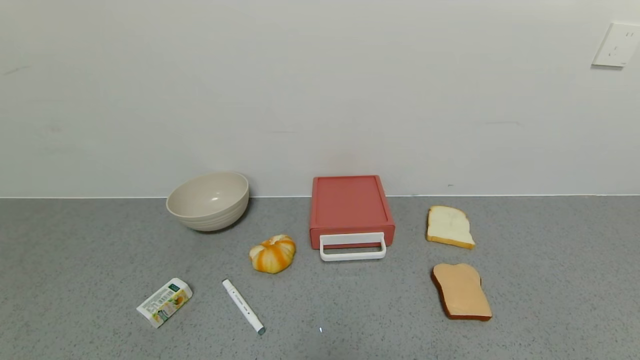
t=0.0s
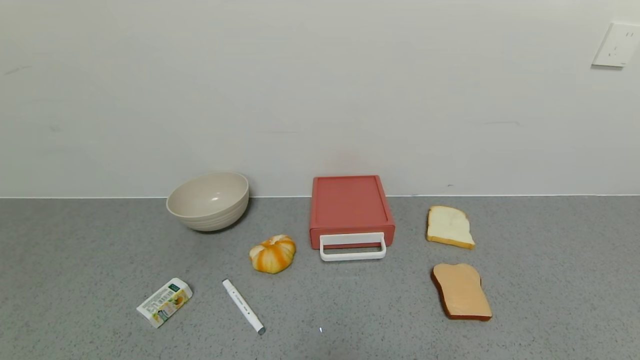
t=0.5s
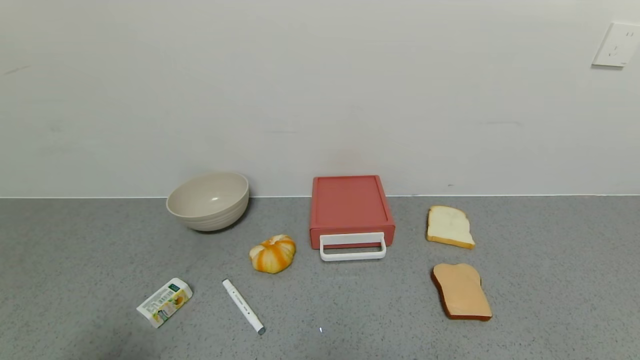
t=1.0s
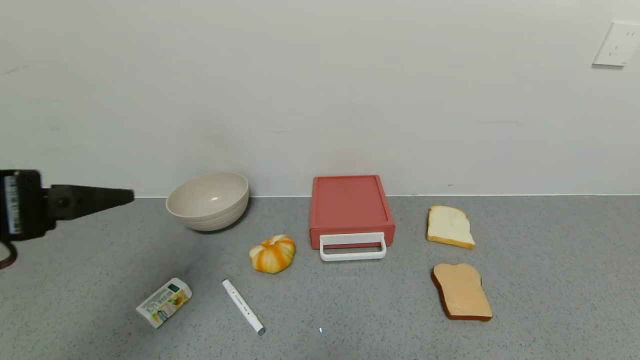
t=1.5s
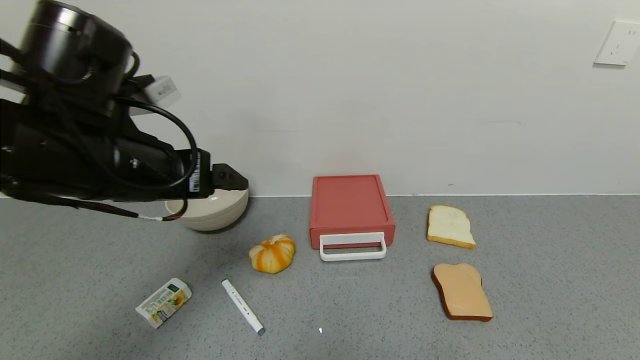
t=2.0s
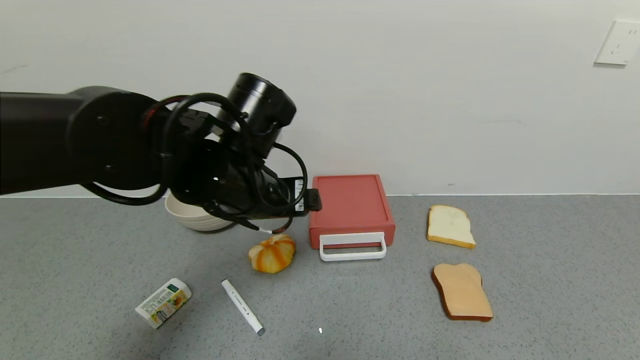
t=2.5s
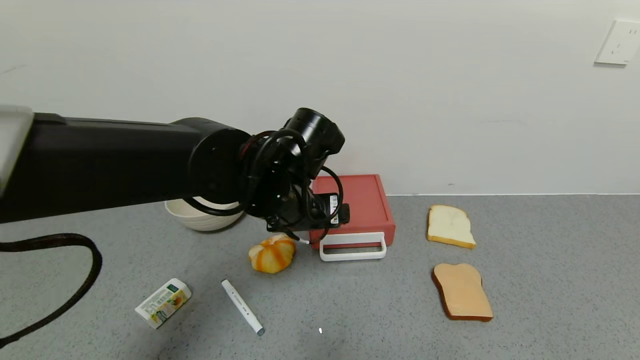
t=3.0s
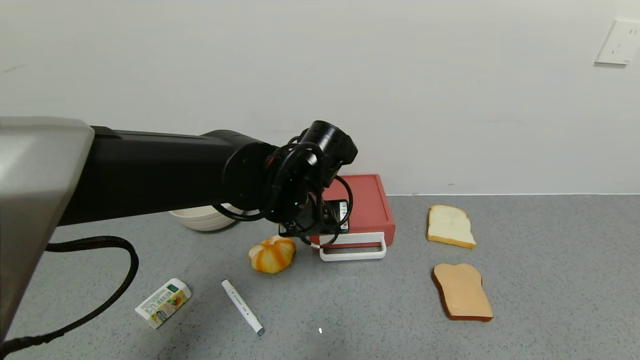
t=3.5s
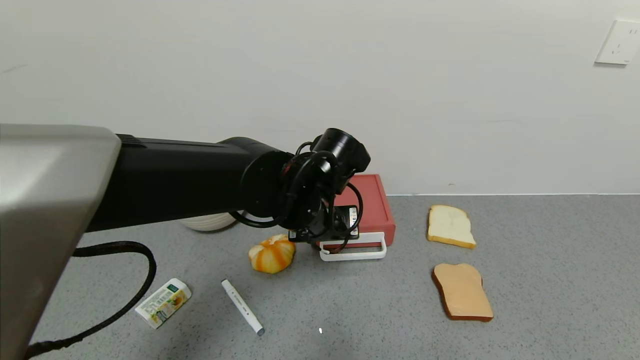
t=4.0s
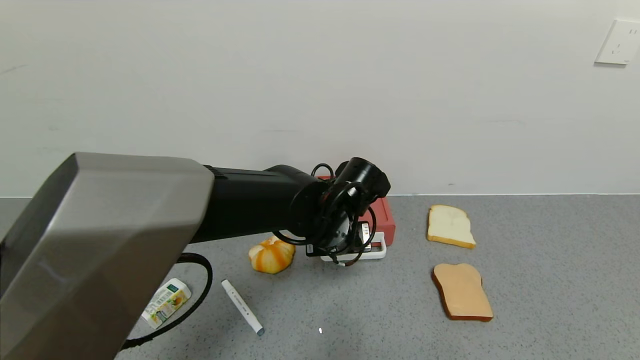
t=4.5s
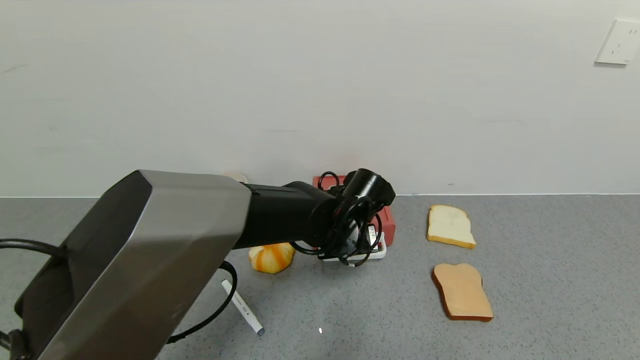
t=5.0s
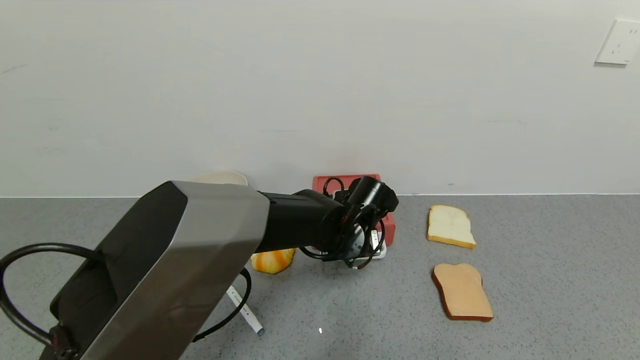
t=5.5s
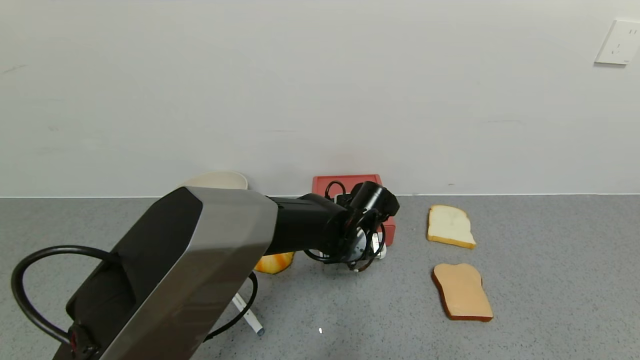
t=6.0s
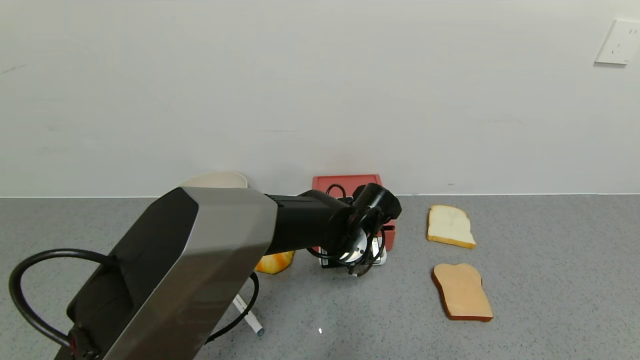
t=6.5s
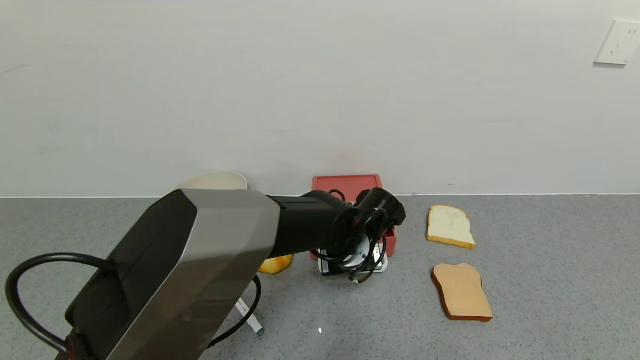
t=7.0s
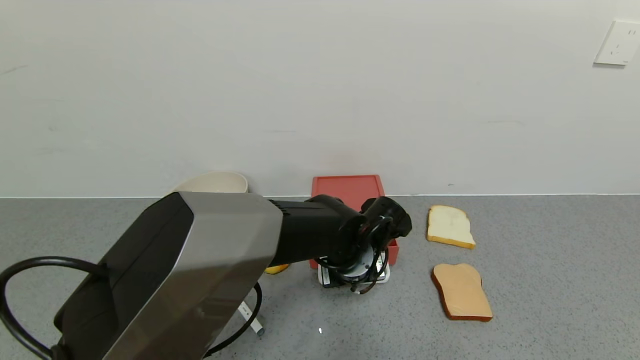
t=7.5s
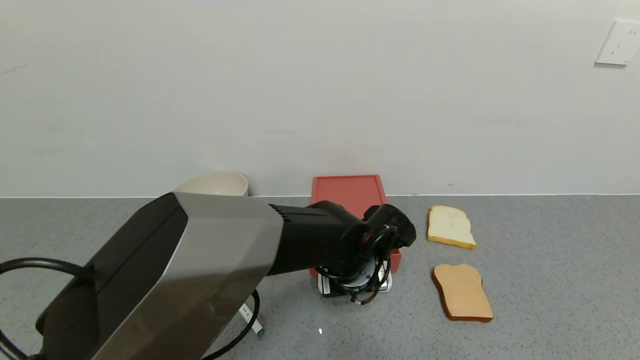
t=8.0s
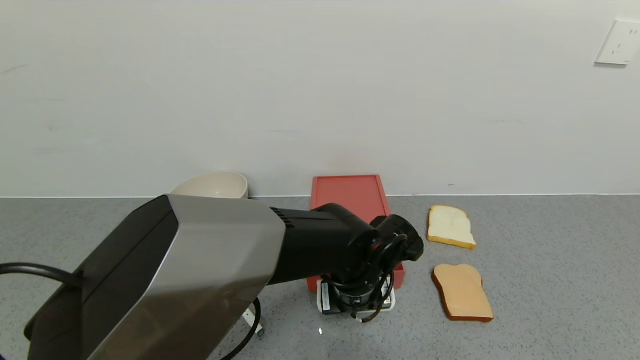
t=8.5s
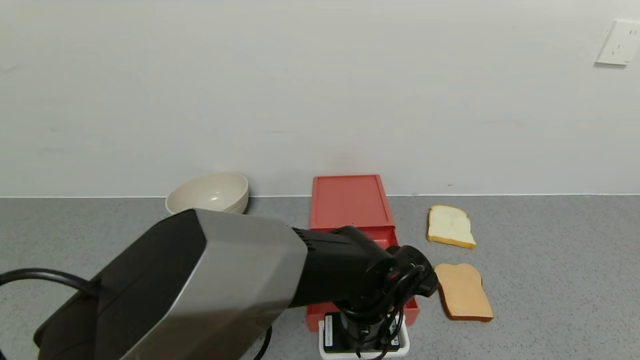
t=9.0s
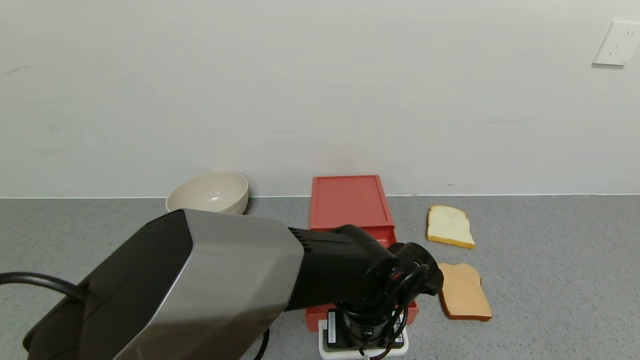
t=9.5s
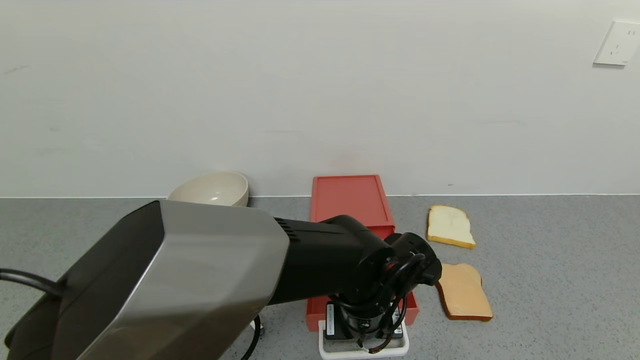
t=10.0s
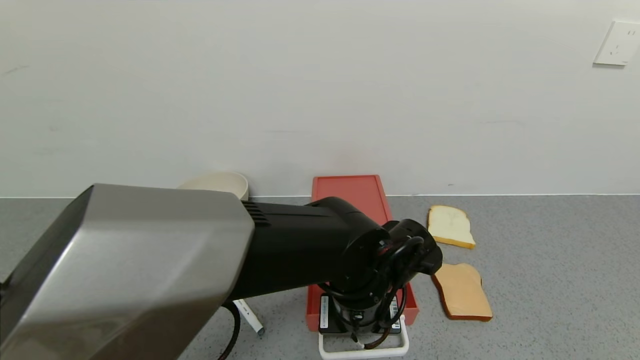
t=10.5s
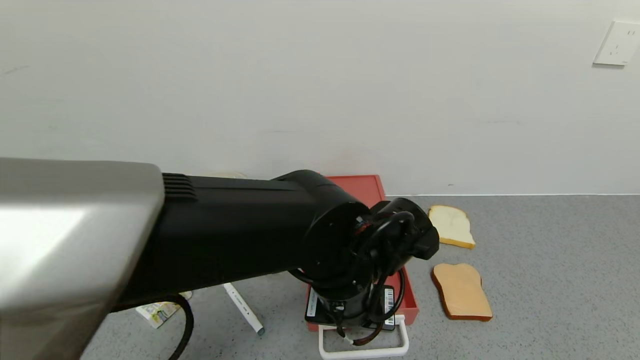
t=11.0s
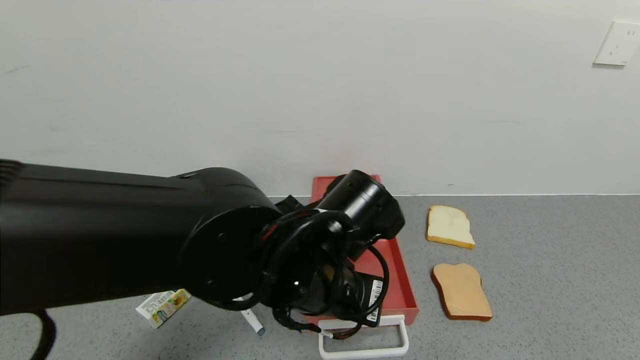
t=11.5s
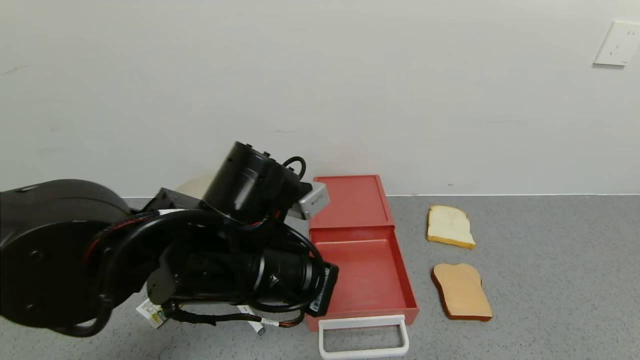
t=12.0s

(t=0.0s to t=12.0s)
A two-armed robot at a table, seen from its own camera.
Task of the whole recording: use the gripper to open the drawer and close the red drawer.
Step, t=0.0s - t=11.0s: Open the red drawer with left gripper.
t=0.0s - t=2.0s: The left gripper travels forward and upward by roughly 35 cm.
t=2.0s - t=4.0s: The left gripper goes some 20 cm to the right, downward and forward, and closes its fingers.
t=4.0s - t=6.0s: The left gripper heads downward and to the right, covering some 10 cm.
t=6.0s - t=8.0s: The left gripper heads backward, covering about 5 cm.
t=8.0s - t=10.0s: There are only small adjustments of the grippers.
t=10.0s - t=12.0s: The left gripper goes roughly 15 cm to the left and upward.

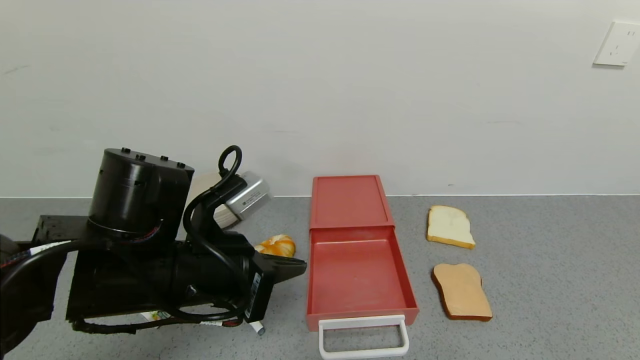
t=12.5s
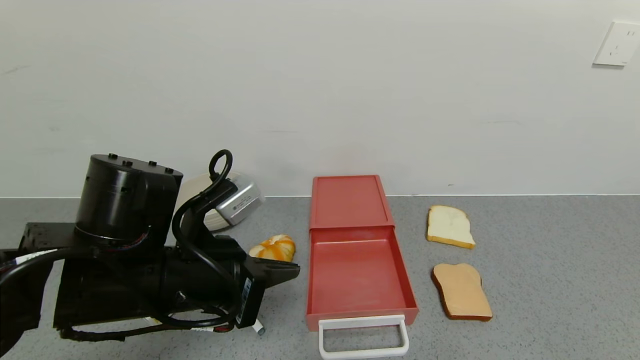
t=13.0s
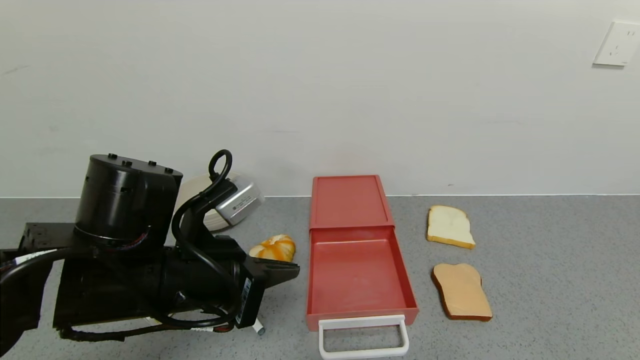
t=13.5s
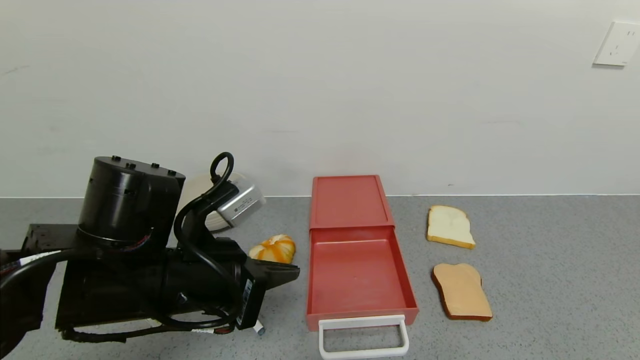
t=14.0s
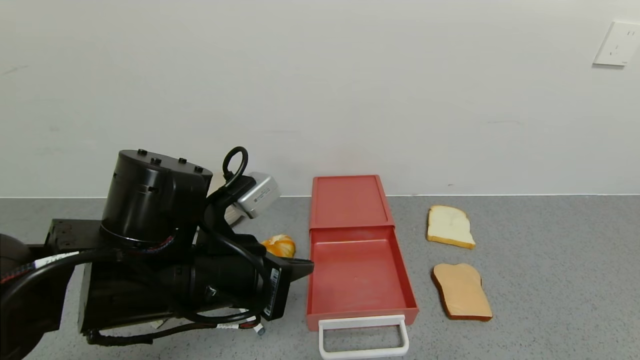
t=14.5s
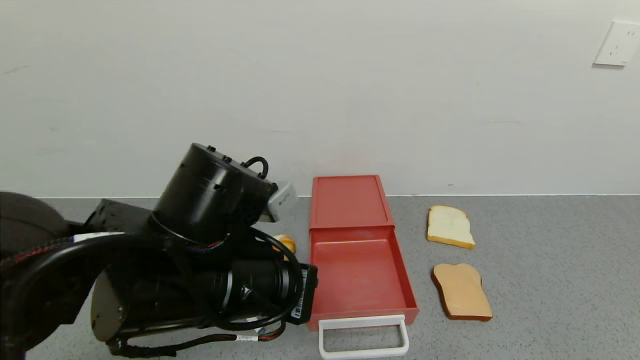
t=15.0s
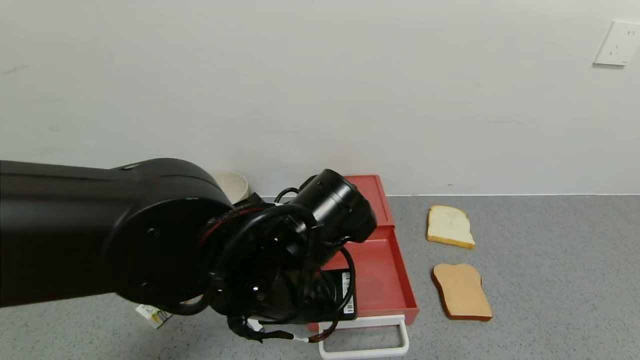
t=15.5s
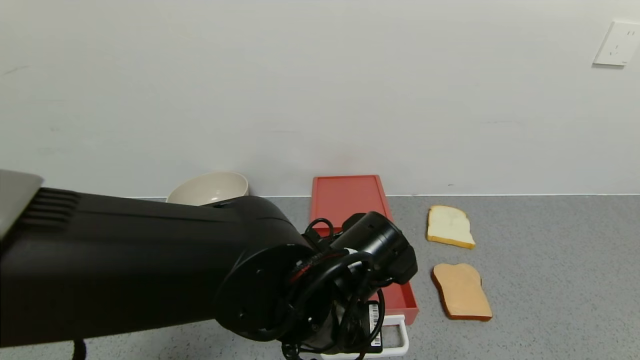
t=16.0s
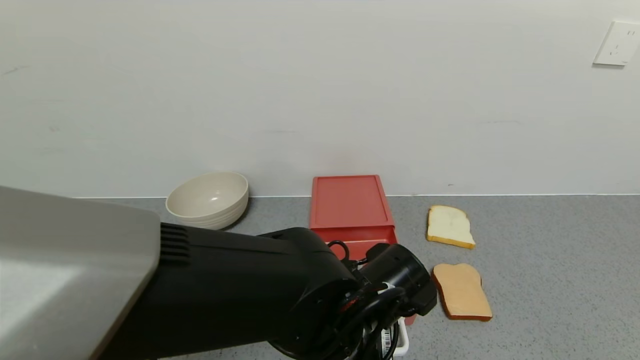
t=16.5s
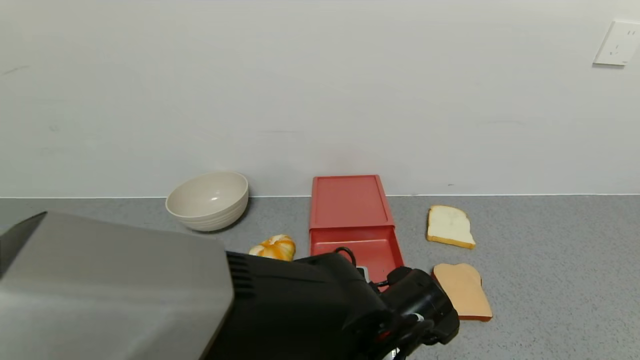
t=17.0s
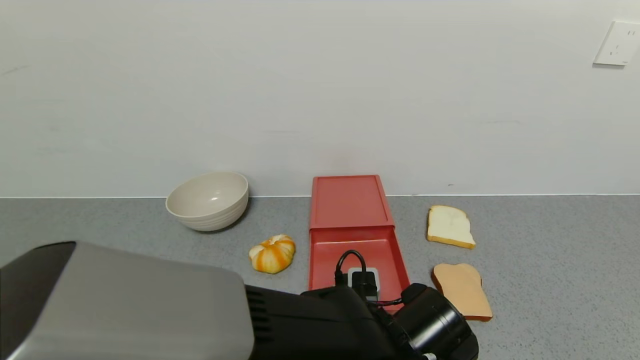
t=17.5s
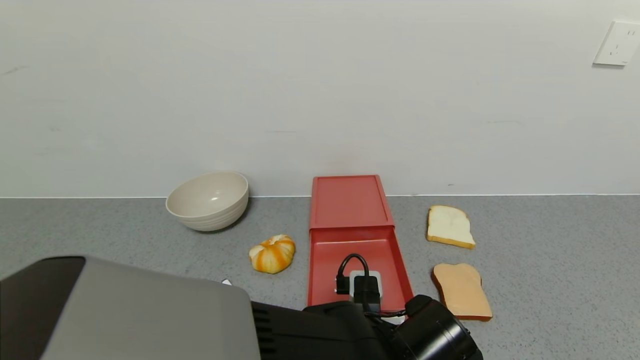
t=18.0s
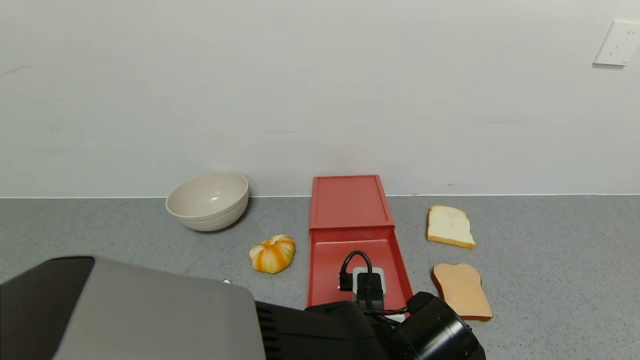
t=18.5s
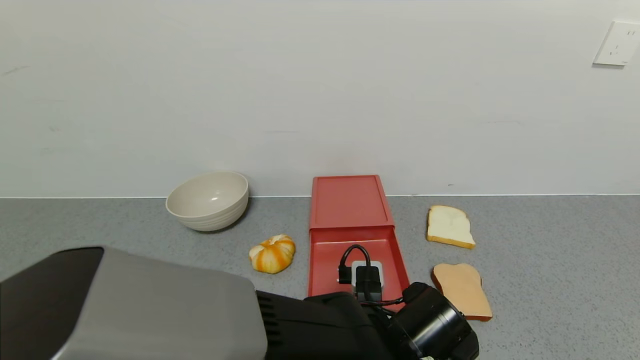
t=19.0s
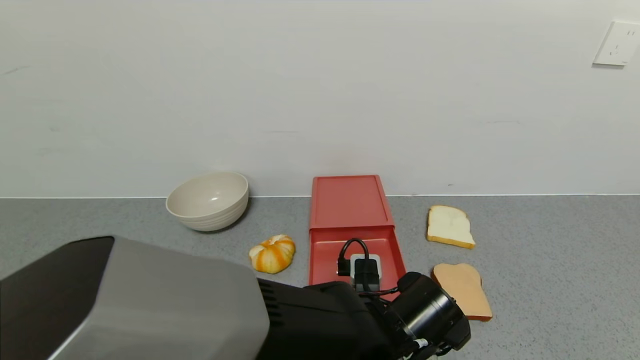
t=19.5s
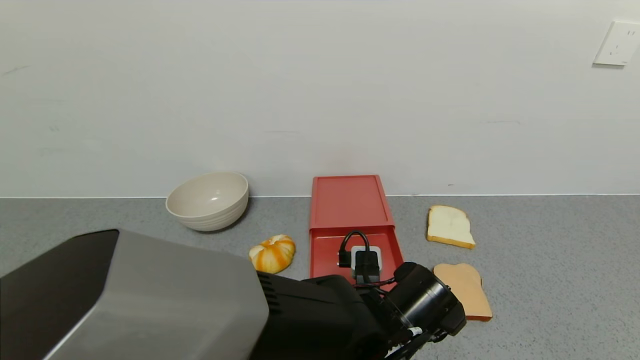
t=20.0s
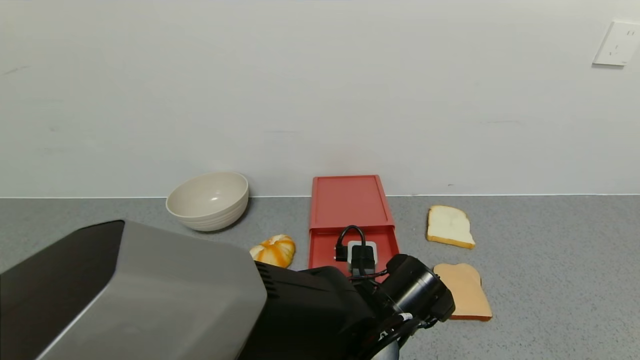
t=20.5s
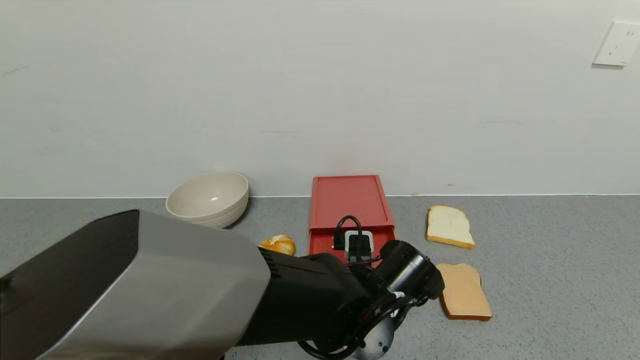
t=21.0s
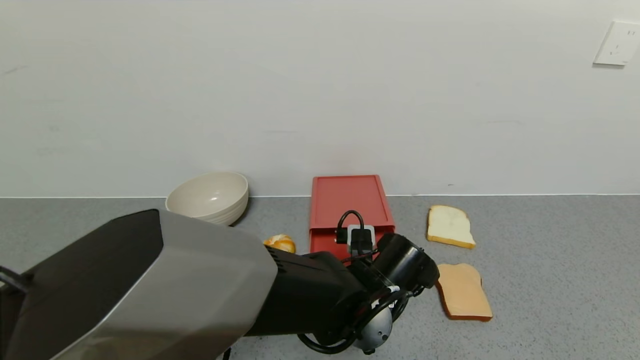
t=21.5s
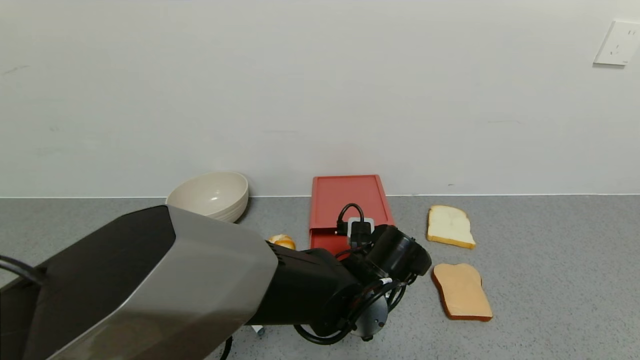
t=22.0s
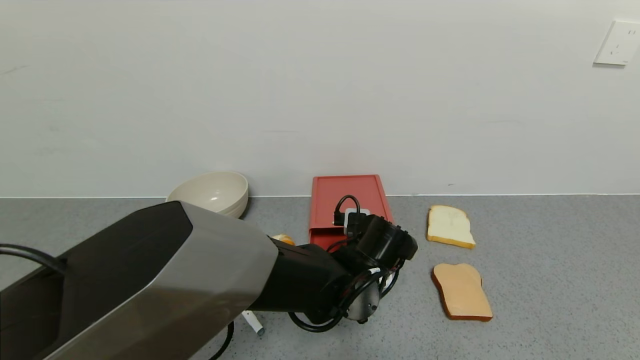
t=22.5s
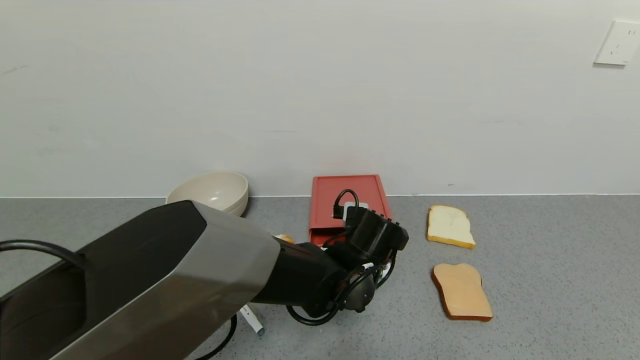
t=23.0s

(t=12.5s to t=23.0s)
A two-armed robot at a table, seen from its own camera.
Task of the whole recording: use the gripper to open the drawer and close the red drawer.
t=12.5s - t=14.5s: There are only small adjustments of the grippers.
t=14.5s - t=16.5s: The left gripper shifts some 15 cm to the right and downward.
t=16.5s - t=19.0s: The left gripper changes place by roughly 5 cm.
t=19.0s - t=21.0s: The left gripper heads forward, covering roughly 5 cm.
t=21.0s - t=23.0s: The left gripper is displaced forward by some 5 cm.
